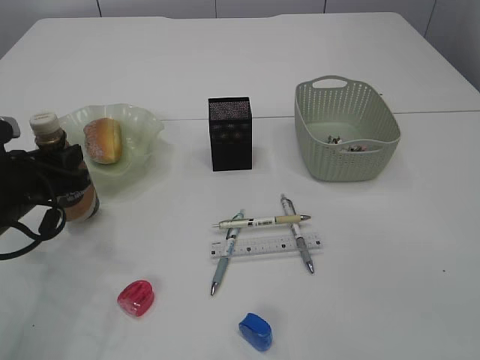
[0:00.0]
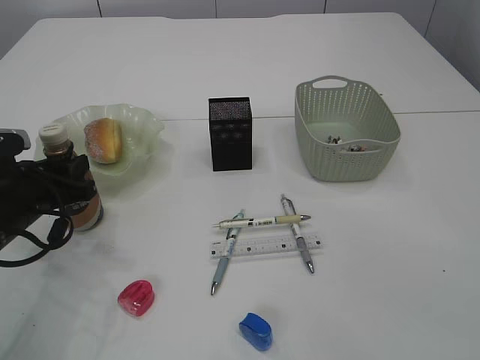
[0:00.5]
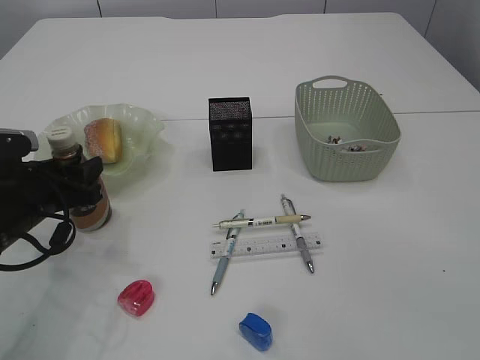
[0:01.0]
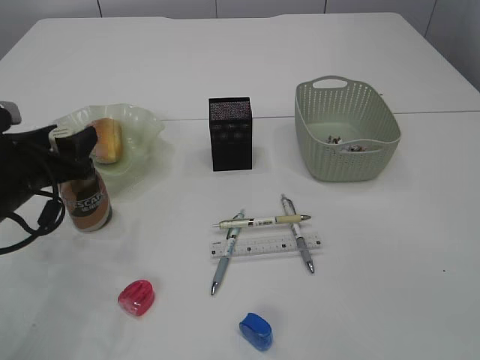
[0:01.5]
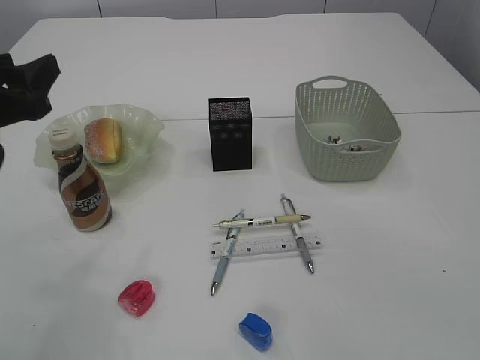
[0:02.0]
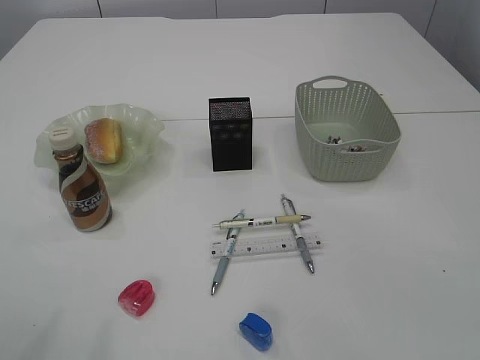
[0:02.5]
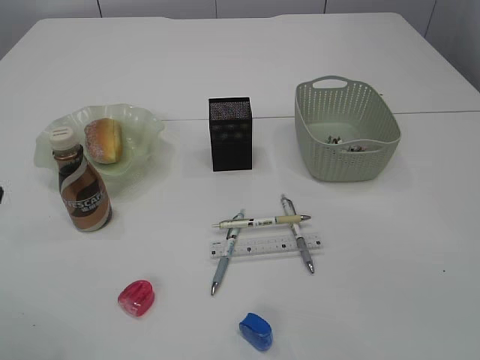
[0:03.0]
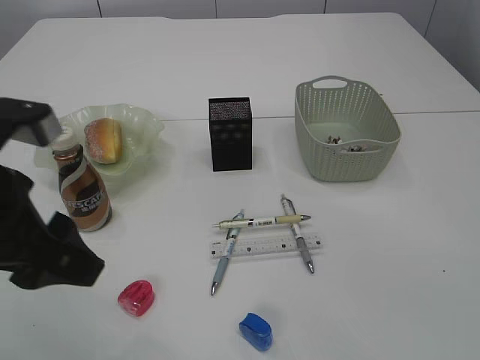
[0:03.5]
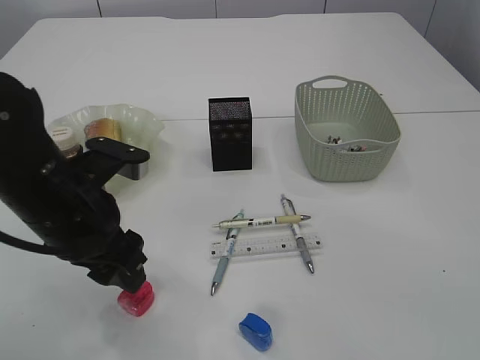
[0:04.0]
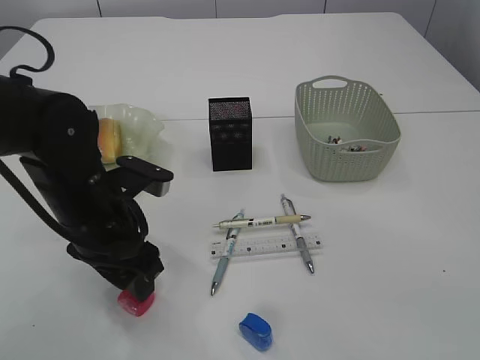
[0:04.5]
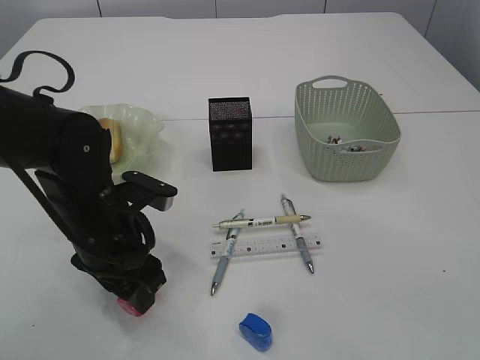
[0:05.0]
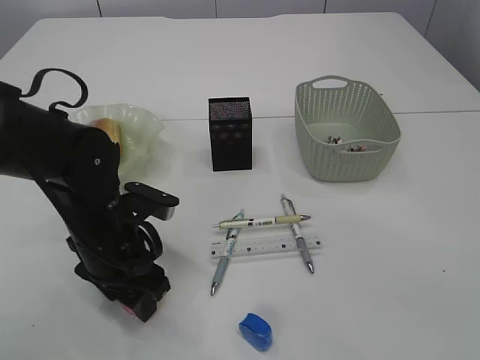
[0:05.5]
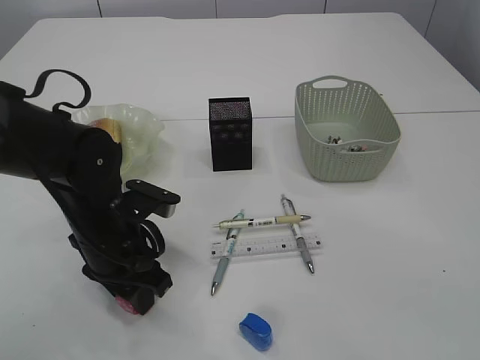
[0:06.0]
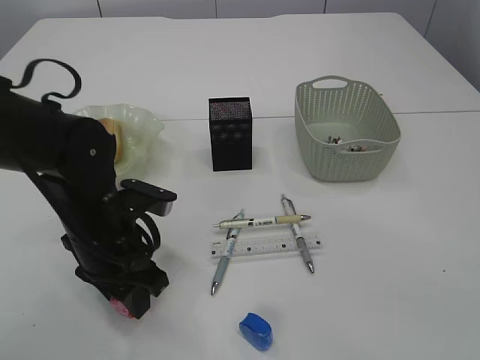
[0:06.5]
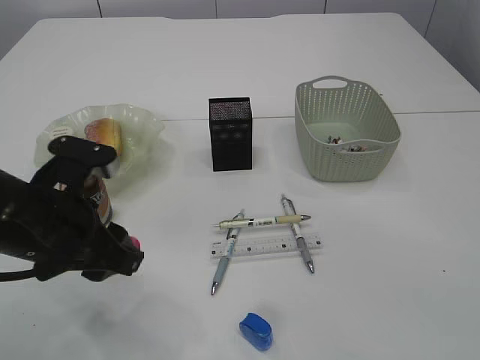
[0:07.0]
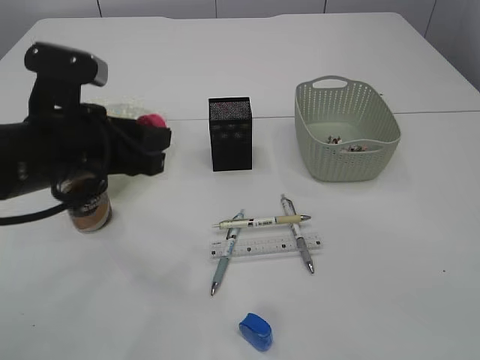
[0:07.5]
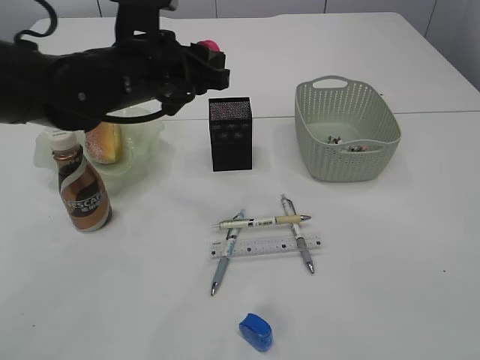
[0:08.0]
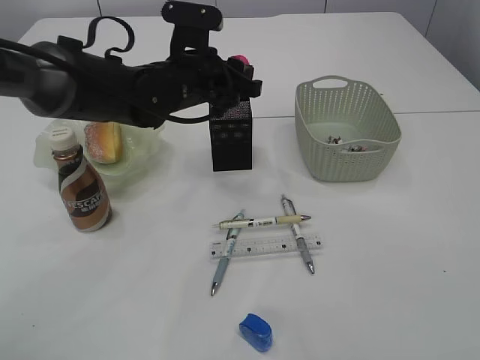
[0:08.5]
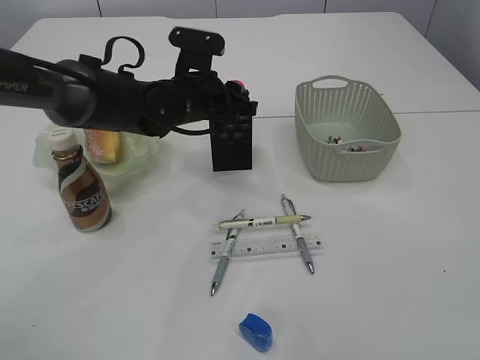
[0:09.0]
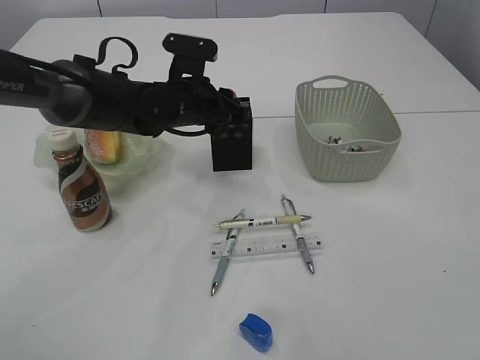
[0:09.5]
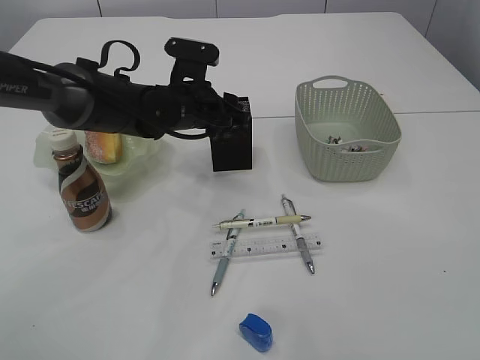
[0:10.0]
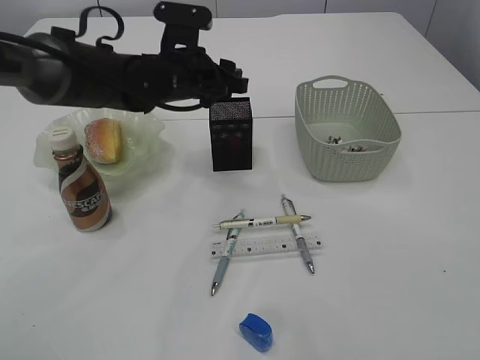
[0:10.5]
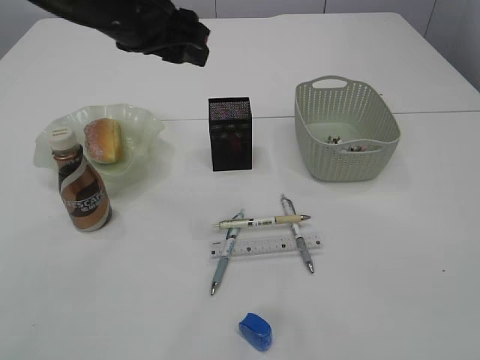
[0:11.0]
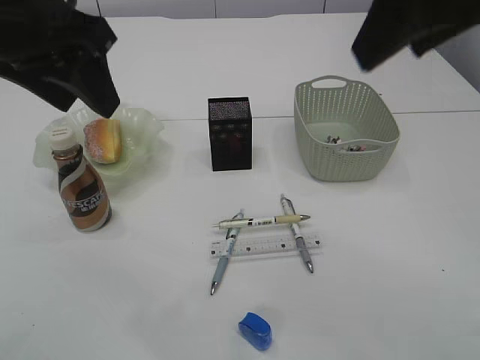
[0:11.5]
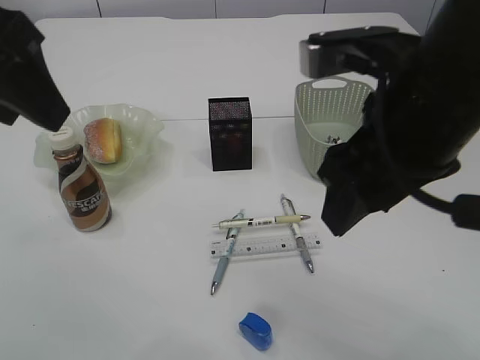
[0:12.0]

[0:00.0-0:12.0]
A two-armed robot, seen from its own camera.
Step, 0:00.0 to 0:02.0: Place the bottle.
Step, 0:02.5 to 0:06.5: Pick up the red pencil sharpener.
Step, 0:07.0 to 0:10.5: Place the red pencil sharpener into the pen holder.
0:00.0 to 0:02.0: The left gripper shifts roughly 10 cm upward, and opens up.
0:02.0 to 0:04.0: The left gripper heads to the right, covering roughly 10 cm.
0:04.0 to 0:06.0: The left gripper shifts about 10 cm downward.
0:06.0 to 0:08.0: The left gripper shifts about 15 cm upward and forward.
0:08.0 to 0:10.0: The left gripper shifts about 10 cm downward and forward.
0:10.0 to 0:12.0: The left gripper heads upward, backward and to the left, covering some 35 cm, while the right gripper travels downward and to the left by some 15 cm.

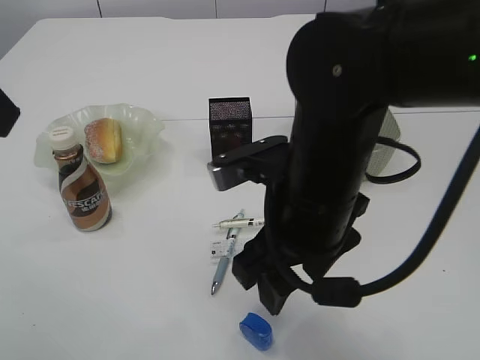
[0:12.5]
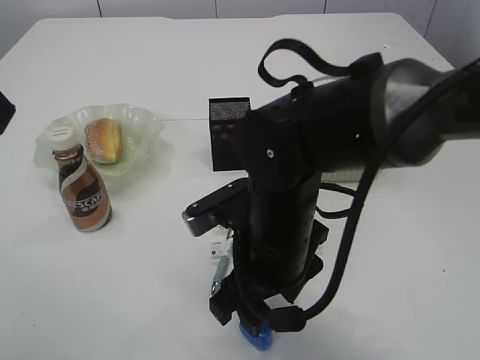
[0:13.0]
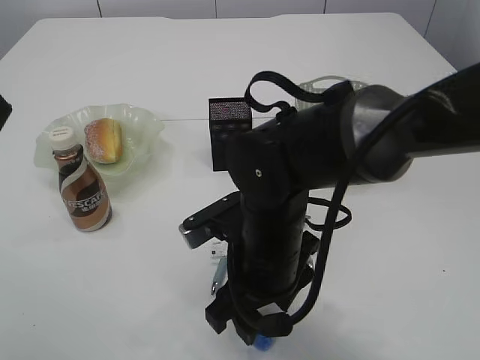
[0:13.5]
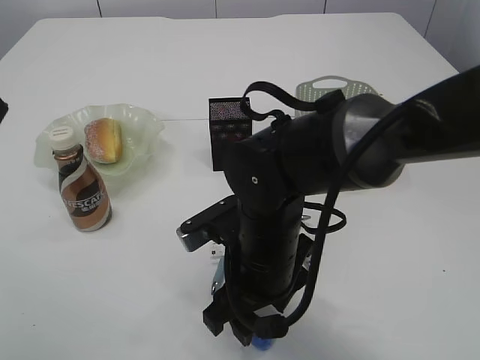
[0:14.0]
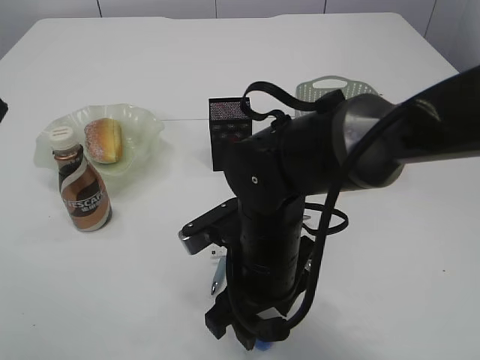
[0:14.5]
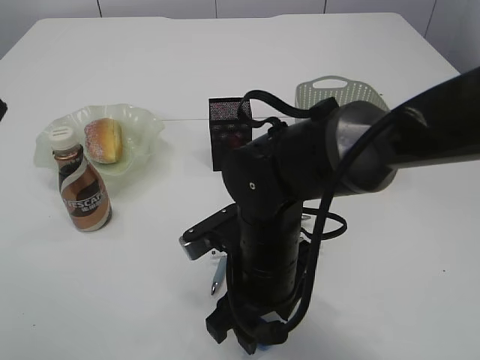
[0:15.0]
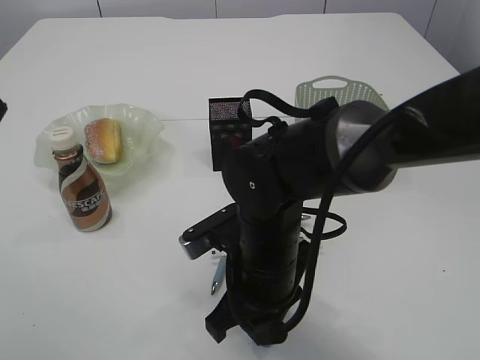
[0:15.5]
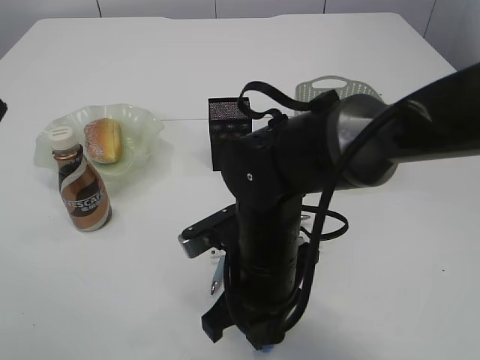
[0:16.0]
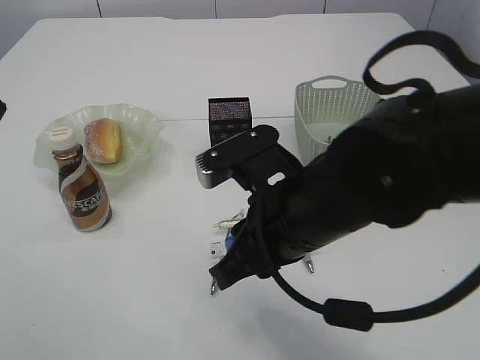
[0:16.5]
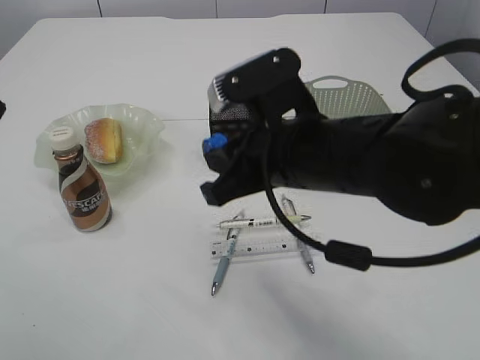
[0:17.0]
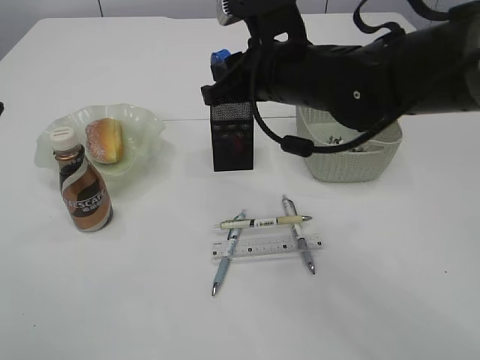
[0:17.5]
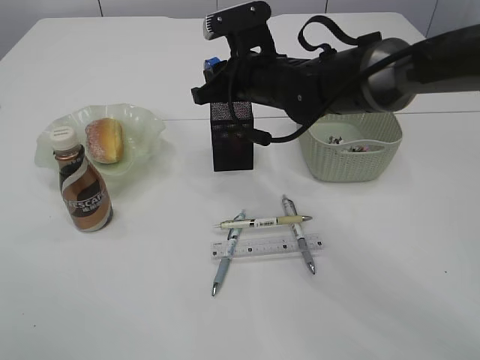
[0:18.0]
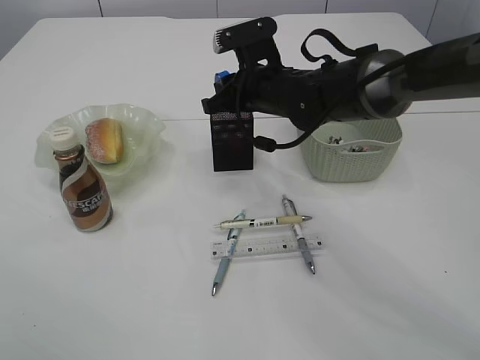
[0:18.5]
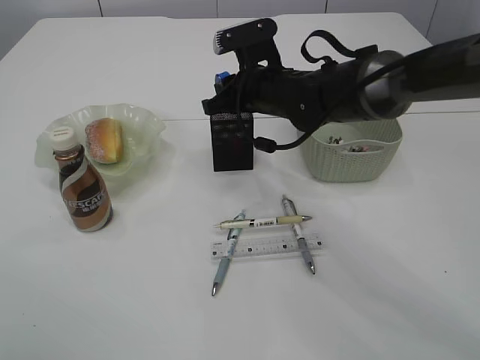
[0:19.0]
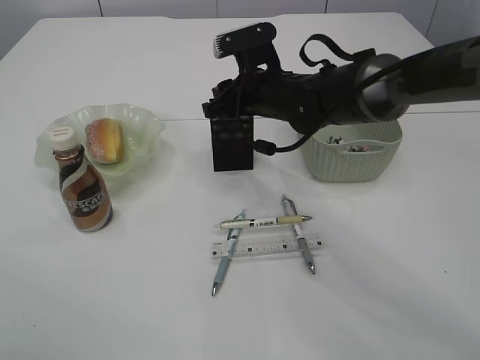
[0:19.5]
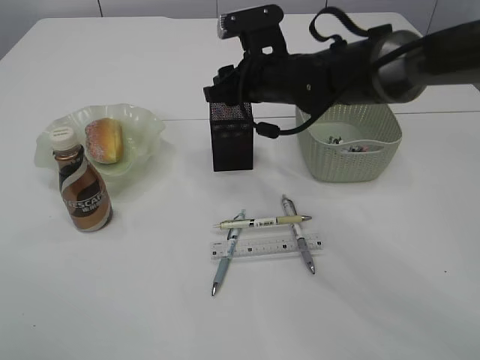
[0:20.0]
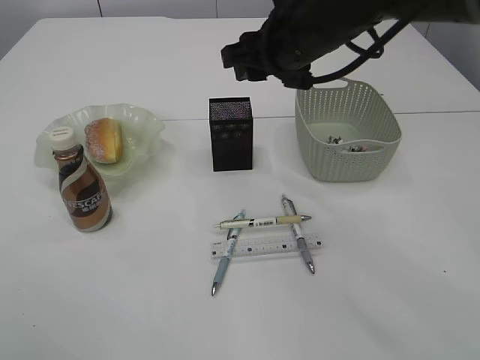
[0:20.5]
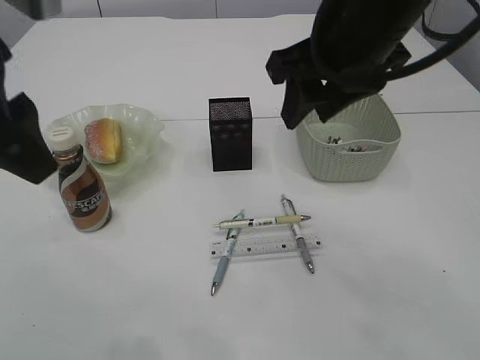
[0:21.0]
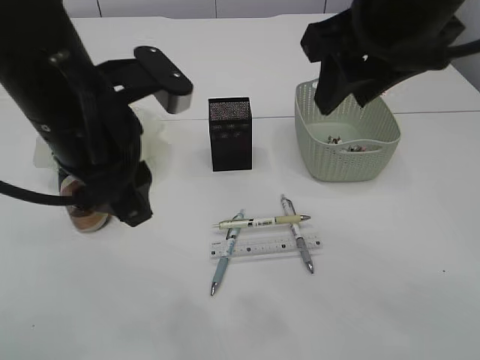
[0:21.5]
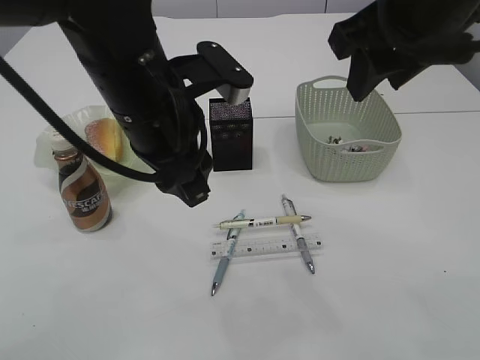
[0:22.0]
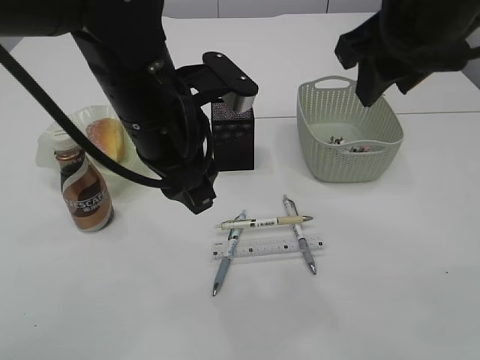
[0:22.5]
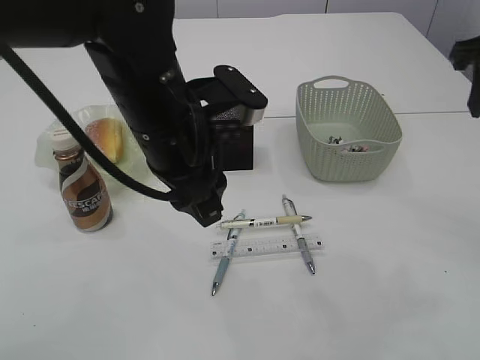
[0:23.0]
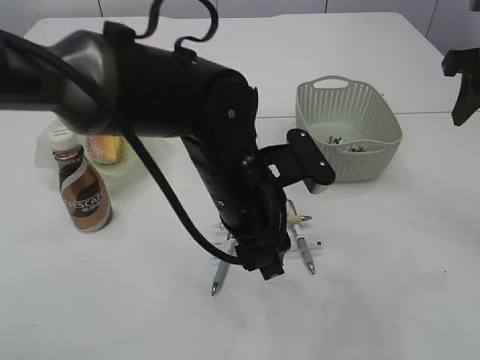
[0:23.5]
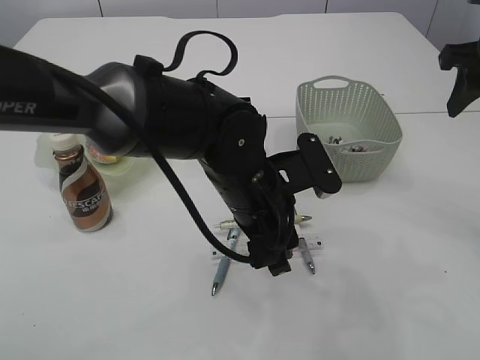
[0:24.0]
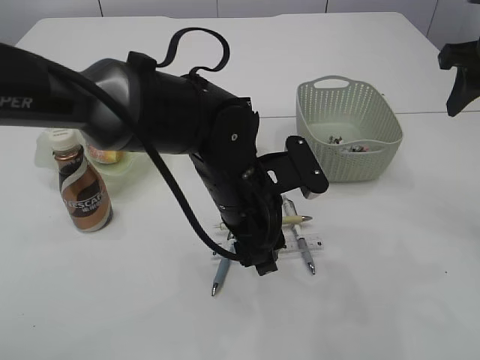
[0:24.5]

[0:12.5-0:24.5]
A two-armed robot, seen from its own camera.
Step, 0:12.5 to 0:16.5: Pick up the blue pencil sharpener.
Step, 0:17.0 to 0:20.0: Place the blue pencil sharpener into the pen holder.
0:12.5 to 0:14.5: The right gripper travels downward by some 10 cm.
0:14.5 to 0:16.5: The right gripper shifts approximately 5 cm upward, and closes its fingers.
0:16.5 to 0:18.5: The right gripper shifts about 20 cm forward.
0:18.5 to 0:20.5: The right gripper goes approximately 10 cm upward and backward, and opens up.
0:20.5 to 0:22.5: The right gripper shifts roughly 15 cm backward, upward and to the right. The left gripper goes some 25 cm to the right, downward and forward.
0:22.5 to 0:24.5: The right gripper goes roughly 15 cm to the right and forward, while the left gripper travels downward and to the right by some 10 cm.

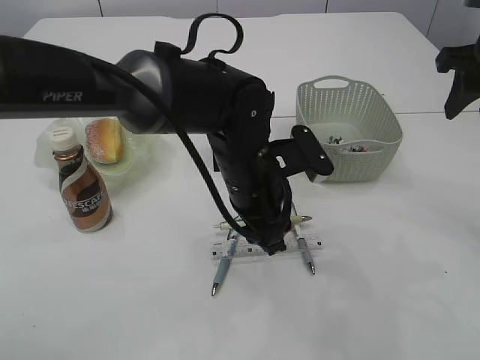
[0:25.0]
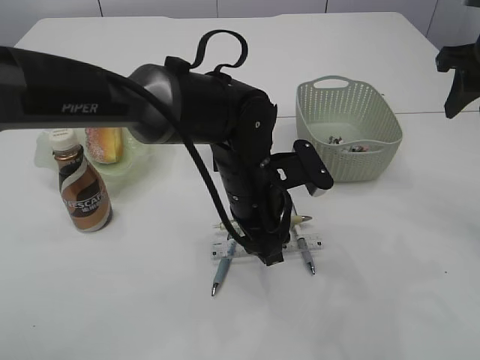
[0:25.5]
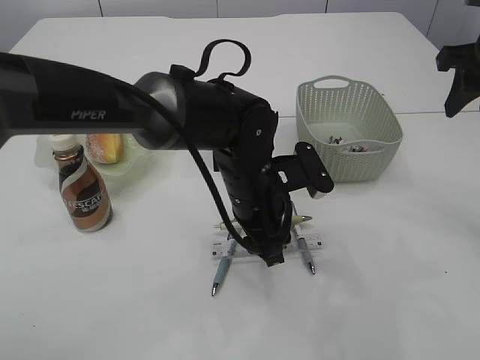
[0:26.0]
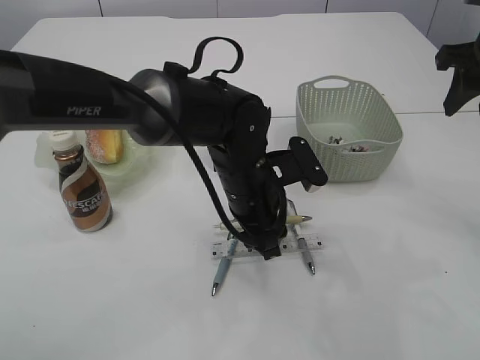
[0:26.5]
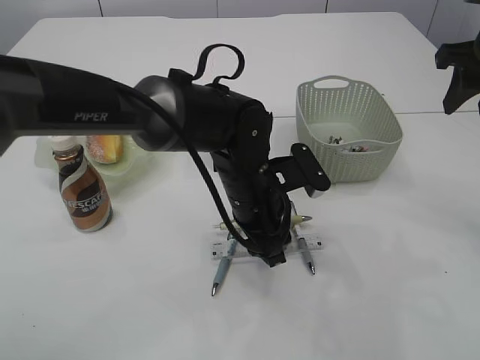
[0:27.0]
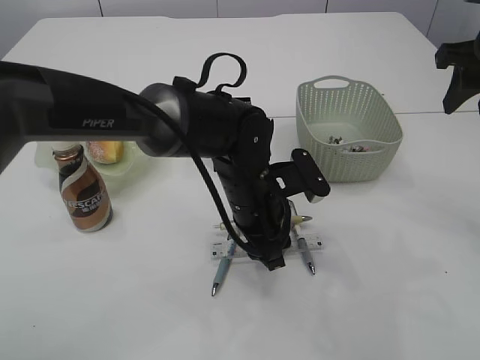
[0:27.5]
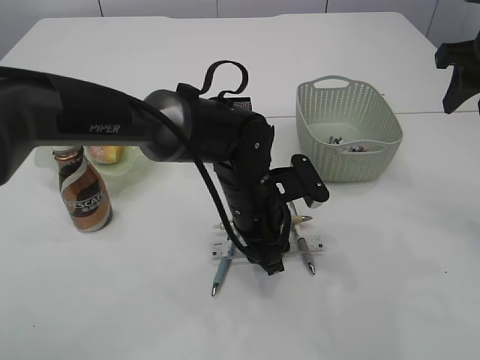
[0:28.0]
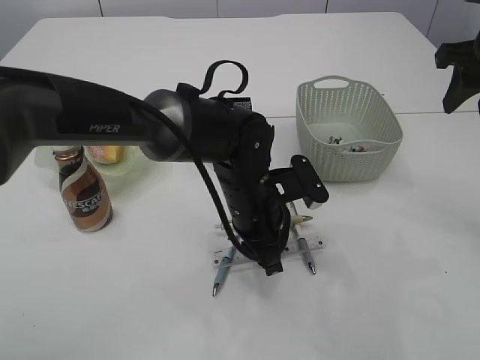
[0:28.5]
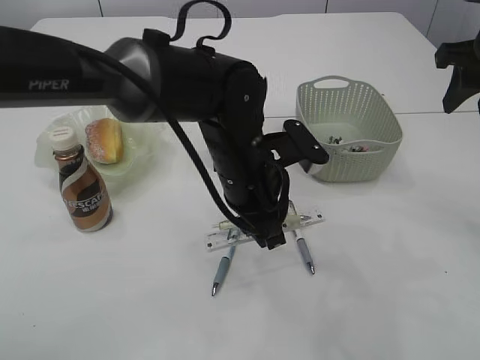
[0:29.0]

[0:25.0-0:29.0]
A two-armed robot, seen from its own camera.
0:25.0 to 0:29.0: There are only small adjustments of the grippers.
